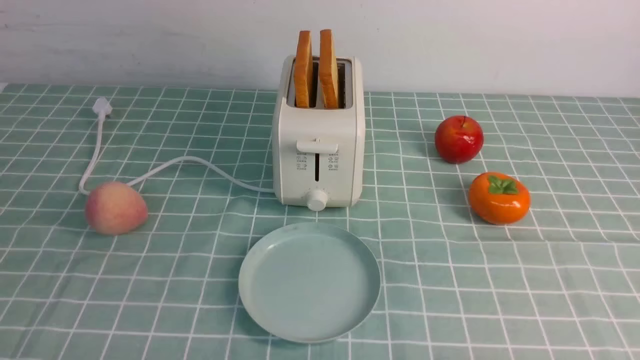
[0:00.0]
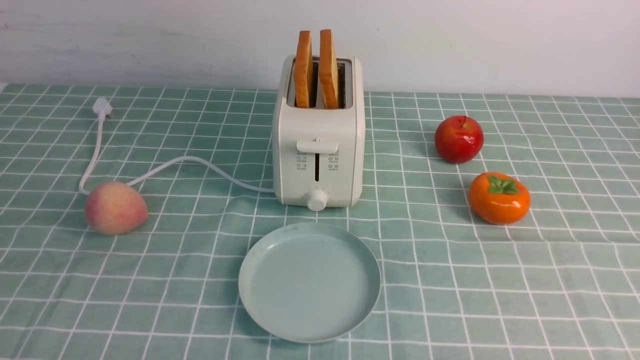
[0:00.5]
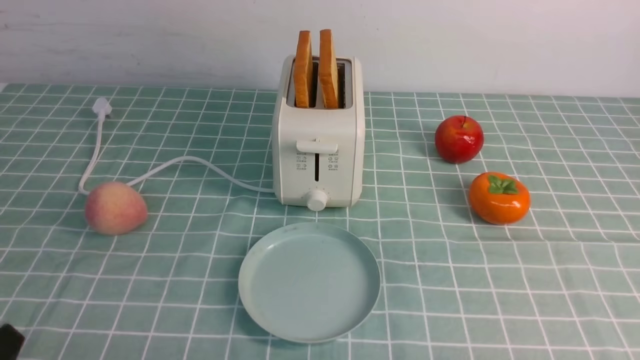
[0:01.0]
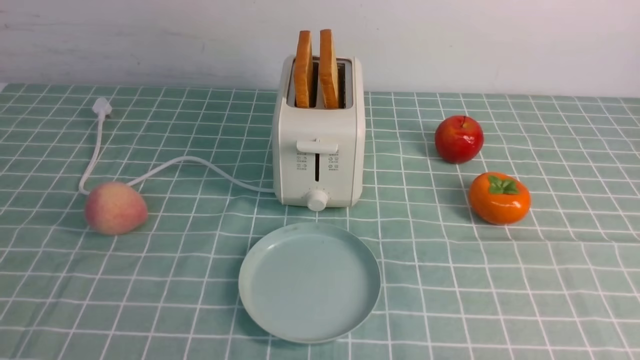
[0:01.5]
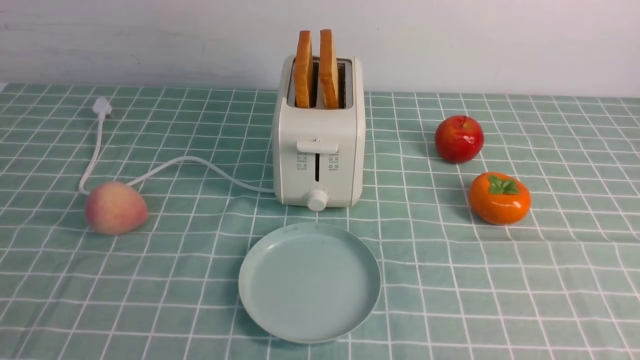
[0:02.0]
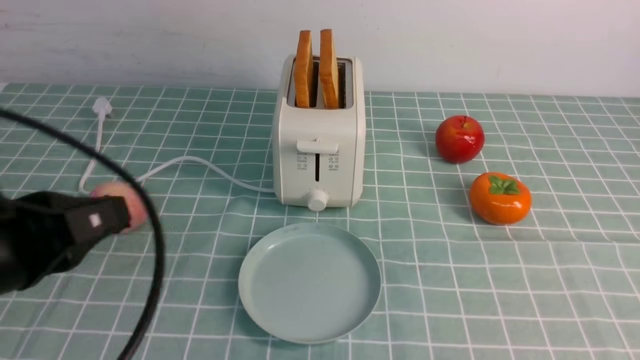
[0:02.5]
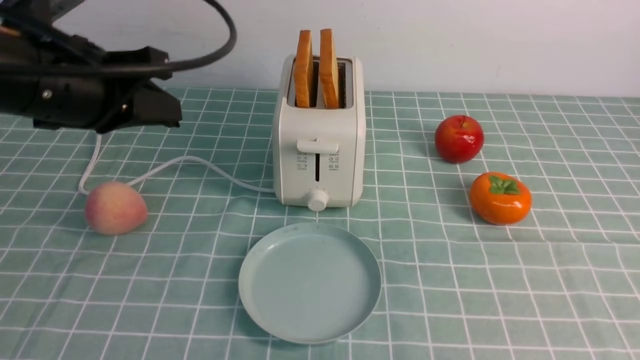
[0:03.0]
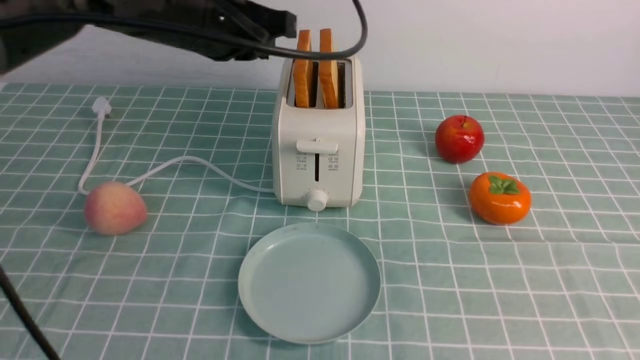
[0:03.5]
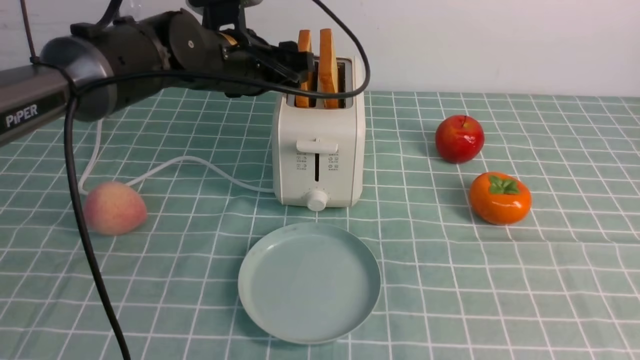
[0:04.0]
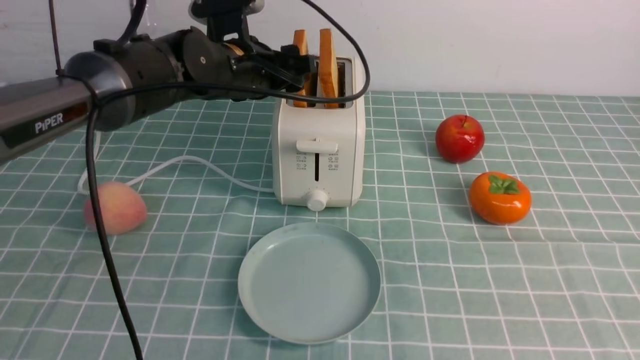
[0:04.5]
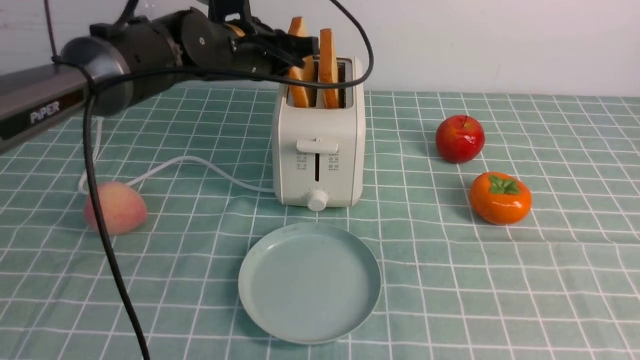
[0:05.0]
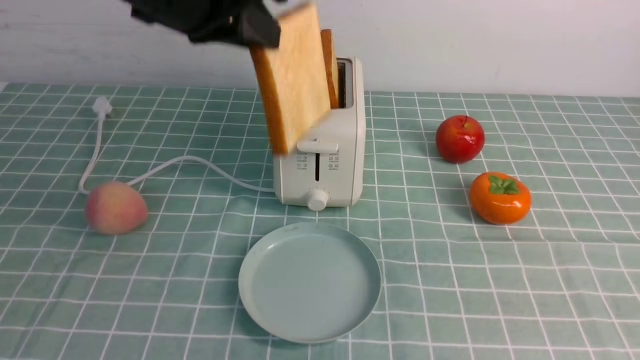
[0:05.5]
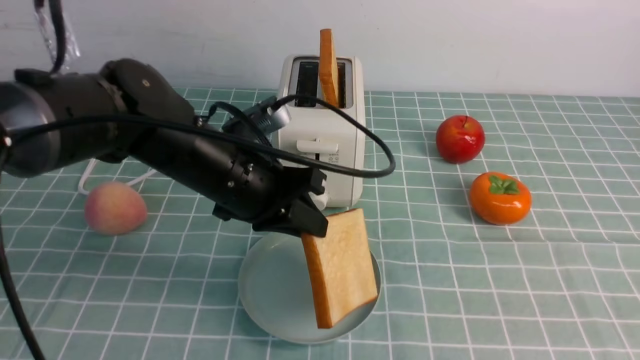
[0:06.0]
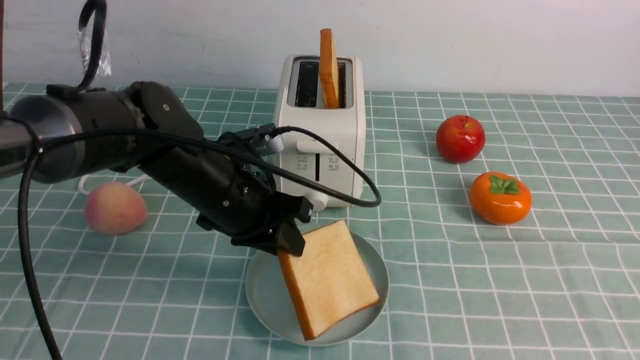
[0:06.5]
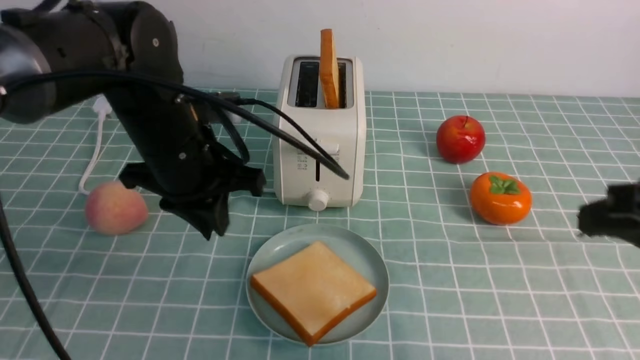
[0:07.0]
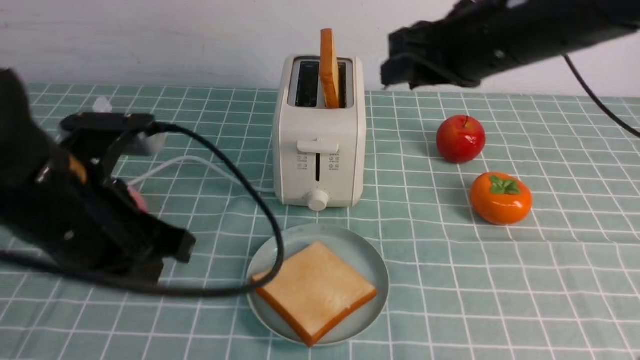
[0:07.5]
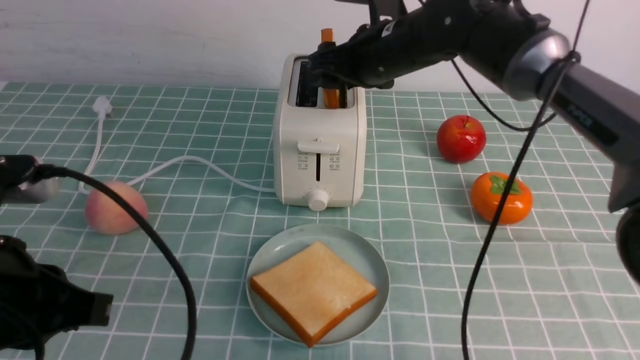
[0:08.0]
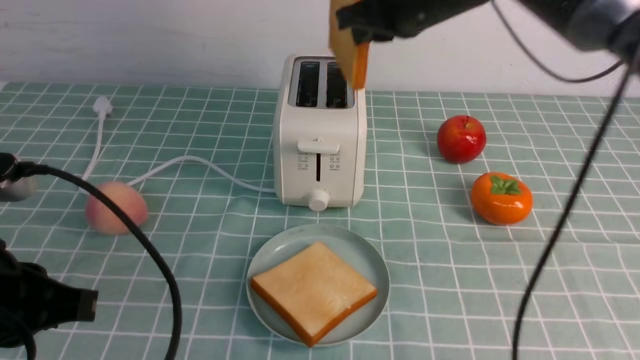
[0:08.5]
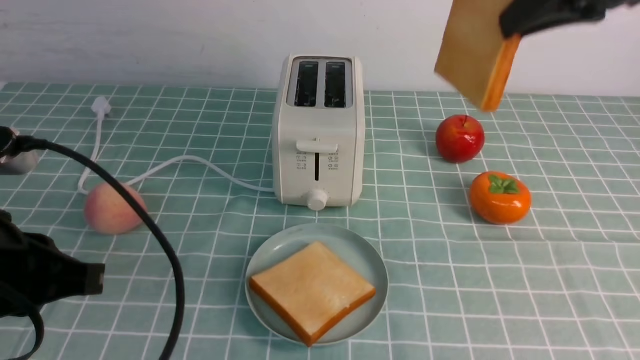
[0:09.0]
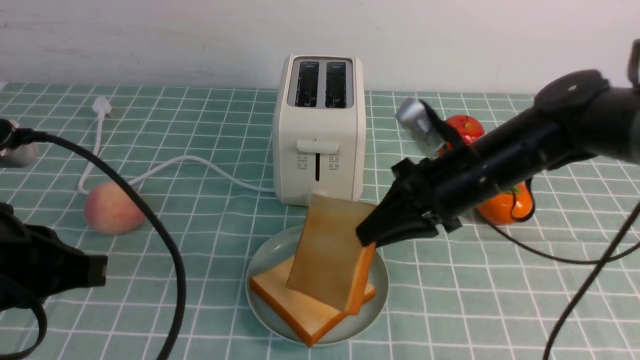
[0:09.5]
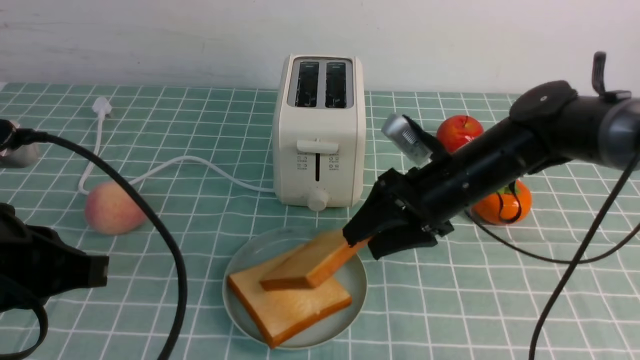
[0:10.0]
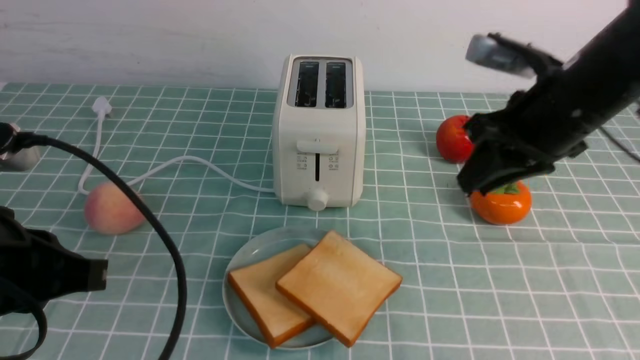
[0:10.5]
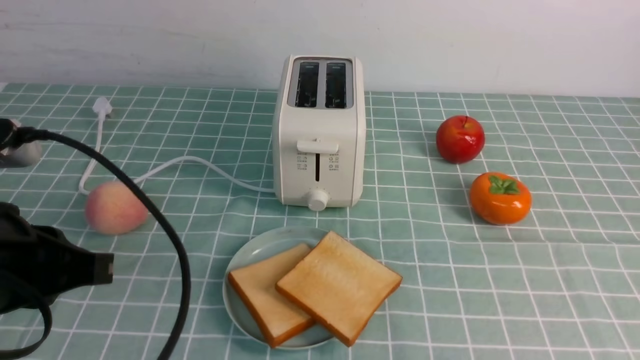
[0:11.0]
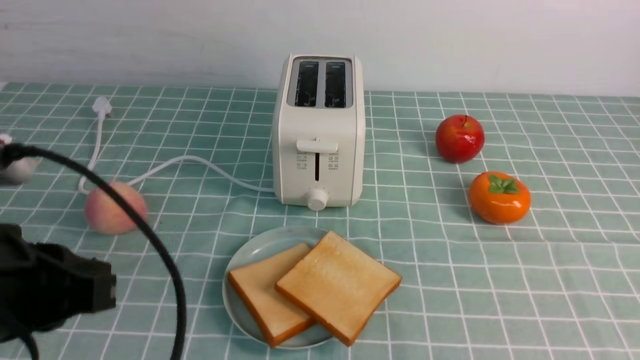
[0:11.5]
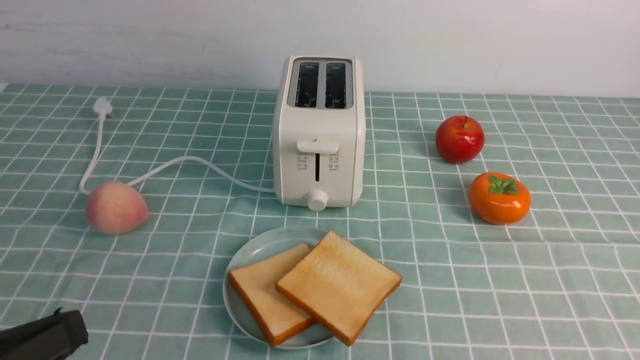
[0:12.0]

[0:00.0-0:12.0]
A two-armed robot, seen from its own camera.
Task of the whole recording: take toasted bread from bread machine on blue coffee table place on plate.
Step, 0:00.0 to 0:05.0: use the left arm to take out a slice of bread.
Step, 0:05.5 to 0:06.5: use the left arm to put a slice of bread into the empty plate.
Step, 0:07.0 to 0:08.5: use the right arm to take out a slice of bread.
Step, 0:09.0 to 0:10.0: use the right arm to put a slice of bread into the plate.
0:02.0 to 0:04.0: The right gripper heads upward, covering some 10 cm, and closes its fingers. Meanwhile the left gripper heads forward and to the right, covering some 40 cm, and opens.
0:04.0 to 0:06.0: The left gripper heads backward, covering about 10 cm, and closes up.
0:06.0 to 0:08.0: The left gripper travels backward and to the left by approximately 20 cm. The right gripper moves forward and to the left, approximately 40 cm, and opens.
0:08.0 to 0:10.0: The right gripper heads backward, downward and to the right, covering some 15 cm, and closes and opens again.
0:10.0 to 0:12.0: The right gripper travels backward and to the right by about 40 cm, and closes up. The left gripper heads backward, covering approximately 10 cm.

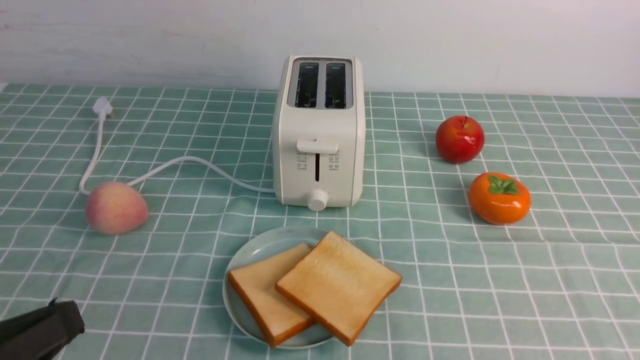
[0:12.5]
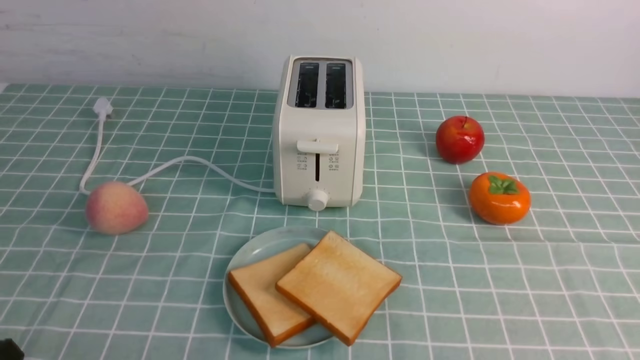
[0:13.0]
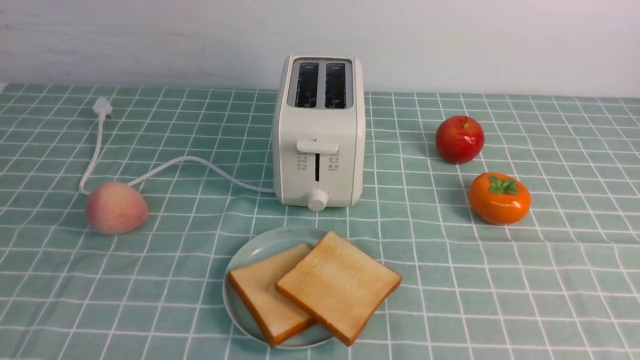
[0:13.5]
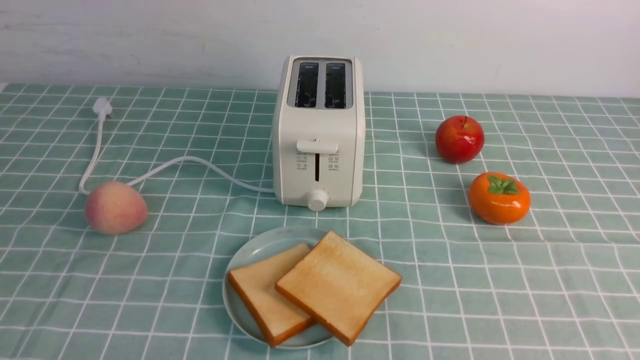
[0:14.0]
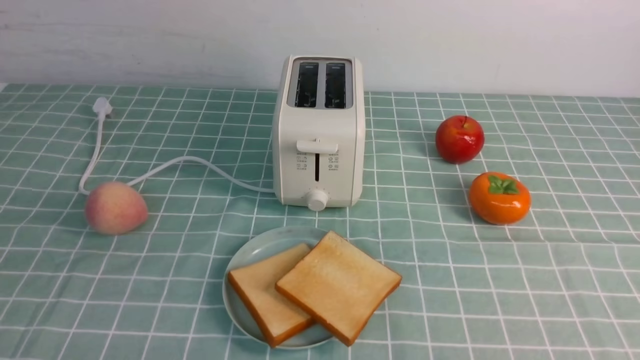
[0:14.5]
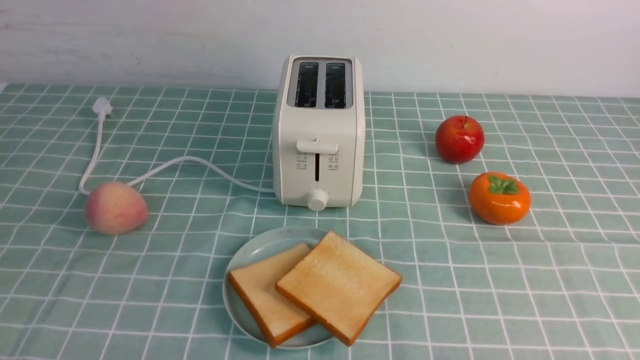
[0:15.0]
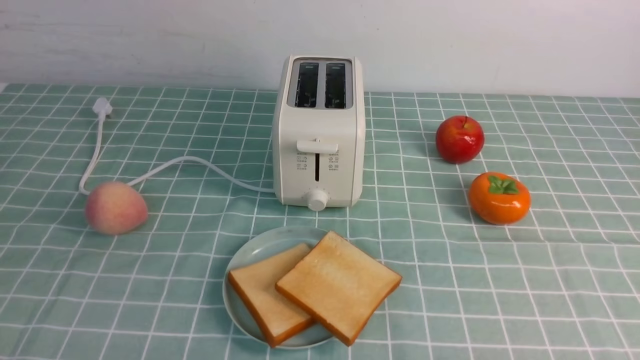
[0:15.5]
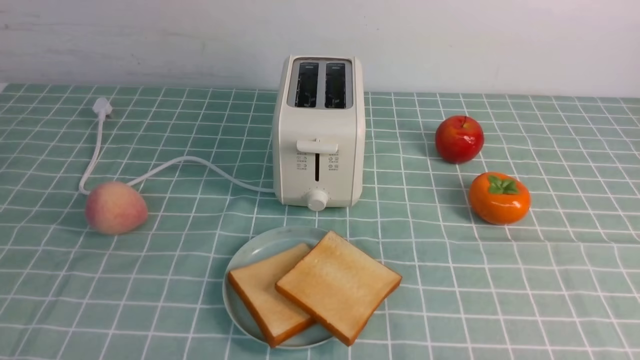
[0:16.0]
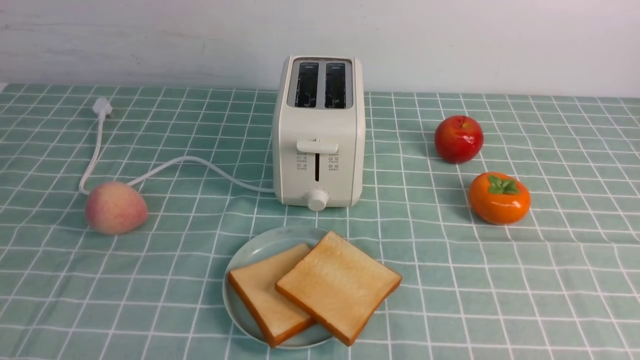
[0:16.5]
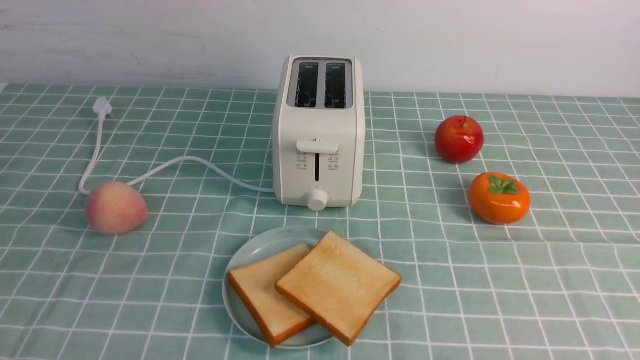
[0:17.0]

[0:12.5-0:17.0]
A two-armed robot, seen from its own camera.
Task of the whole recording: take toasted bread from bread machine on blue coffee table place on plate.
0:12.5 to 0:14.5: The left gripper travels downward by roughly 10 cm.

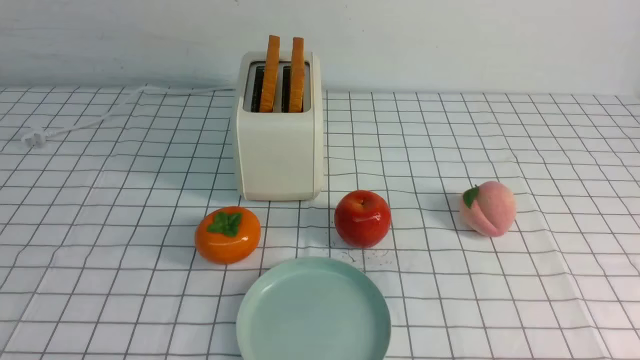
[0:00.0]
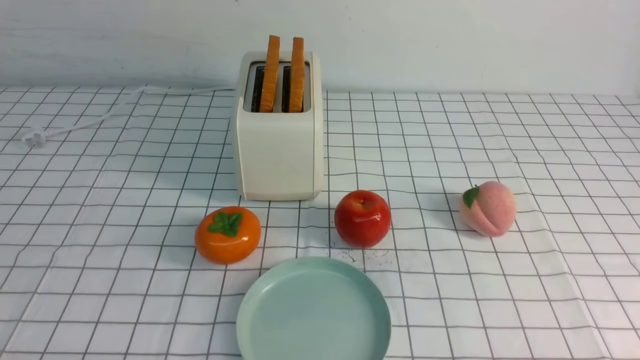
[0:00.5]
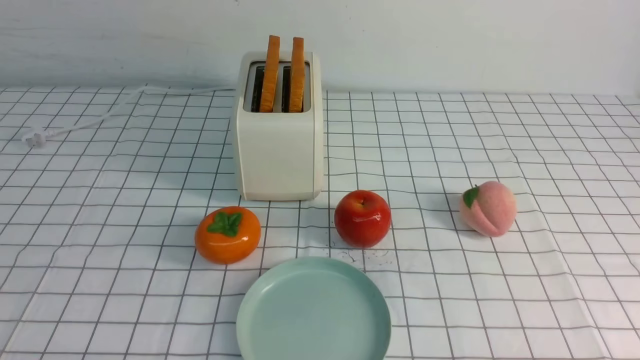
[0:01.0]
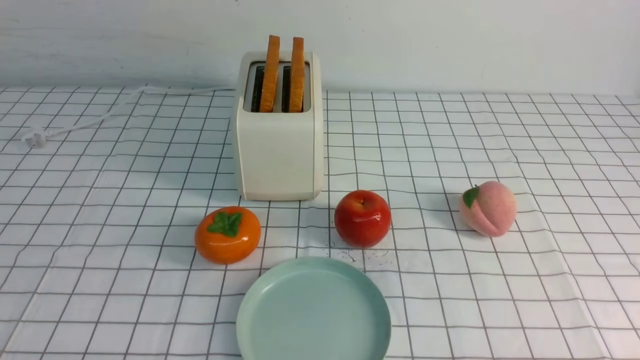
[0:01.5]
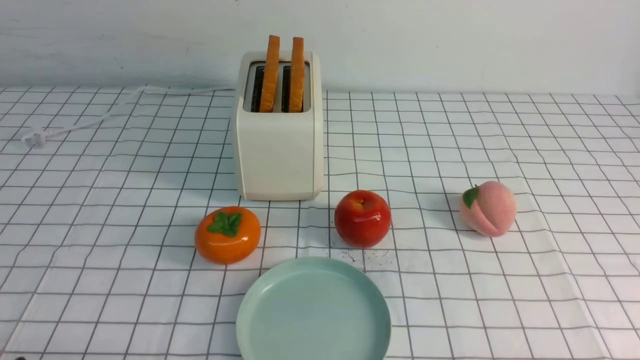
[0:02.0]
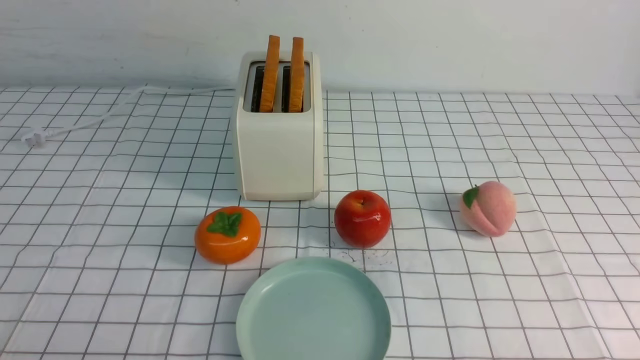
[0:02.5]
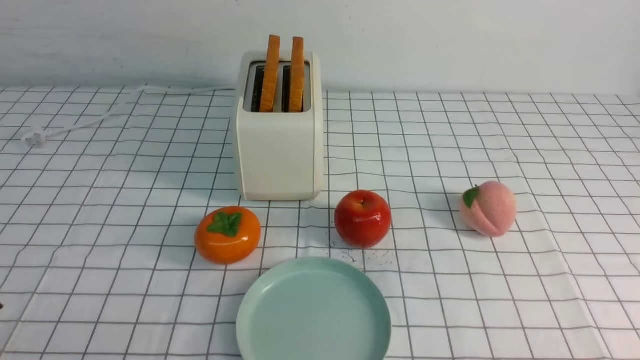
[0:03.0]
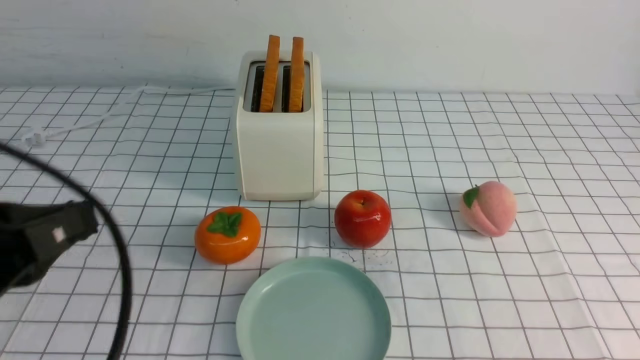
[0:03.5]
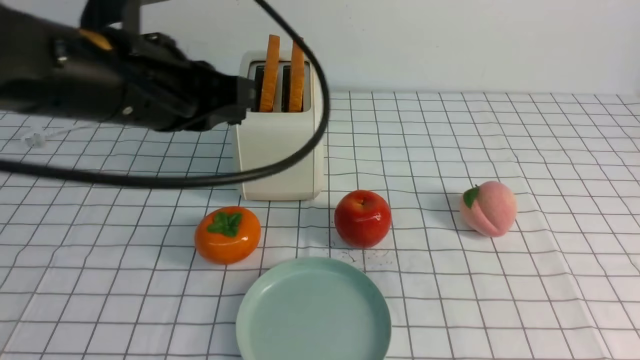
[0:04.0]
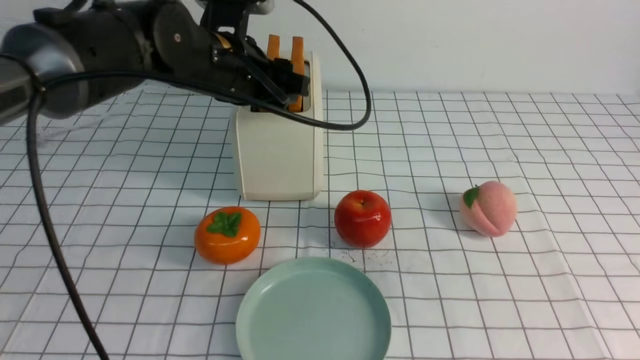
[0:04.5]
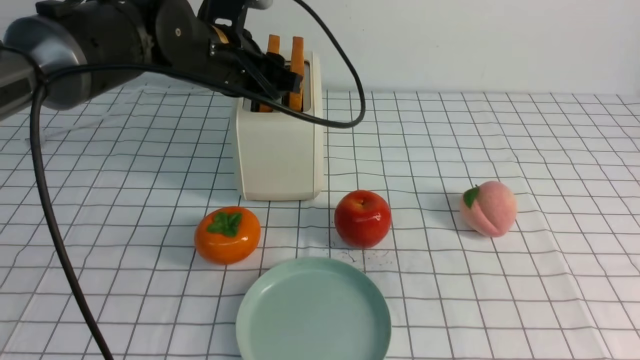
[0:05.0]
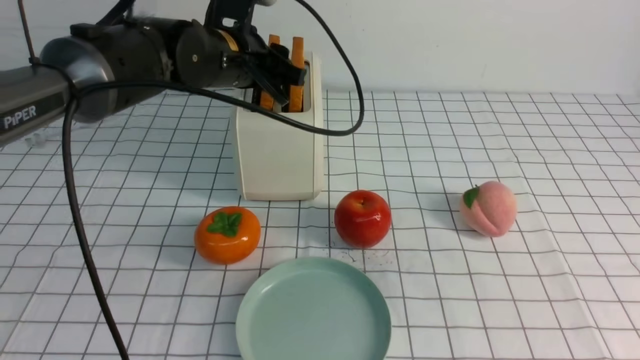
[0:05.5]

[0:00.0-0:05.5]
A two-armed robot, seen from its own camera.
Task of the whole recording: take toasted bread from bread machine on white checkered table place on plate.
0:02.0 to 0:03.5: The left gripper shifts roughly 15 cm upward and forward, and closes its fingers.
0:03.5 to 0:05.5: The left gripper is displaced forward and to the right by about 30 cm, and opens up. Meanwhile the right gripper changes place by about 5 cm.
